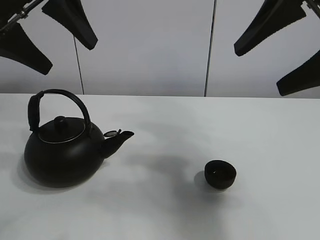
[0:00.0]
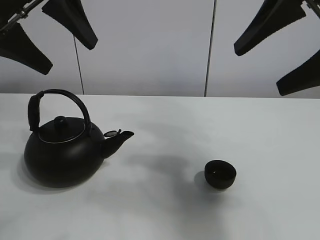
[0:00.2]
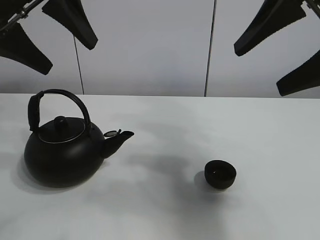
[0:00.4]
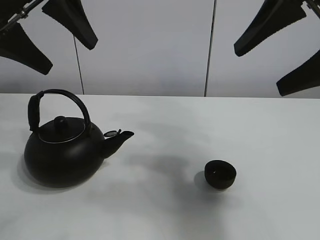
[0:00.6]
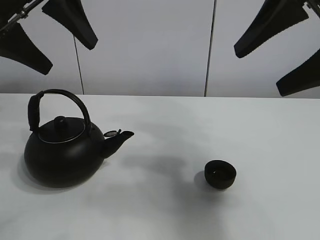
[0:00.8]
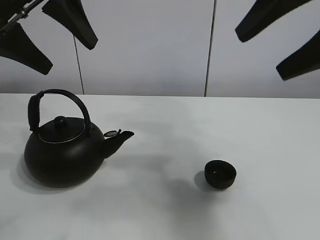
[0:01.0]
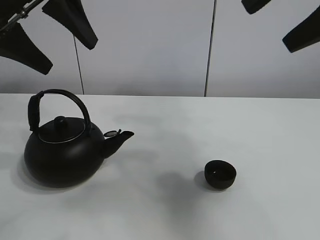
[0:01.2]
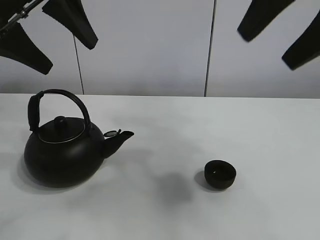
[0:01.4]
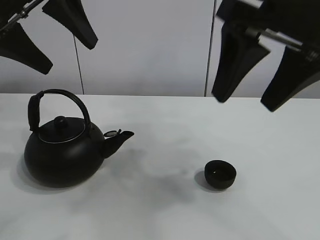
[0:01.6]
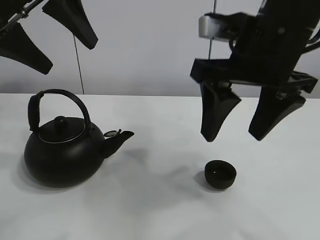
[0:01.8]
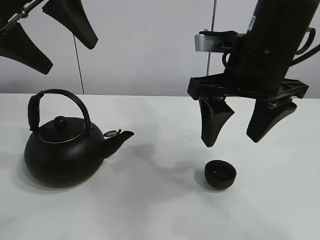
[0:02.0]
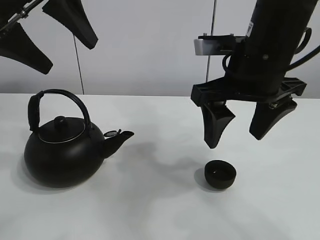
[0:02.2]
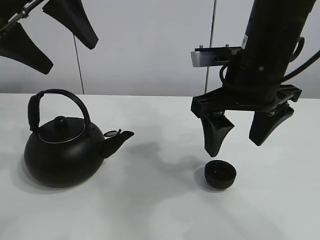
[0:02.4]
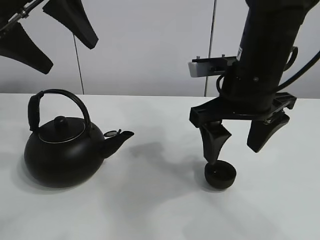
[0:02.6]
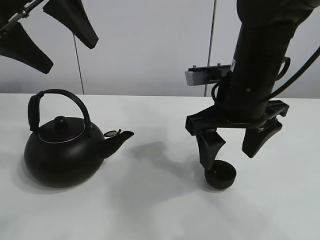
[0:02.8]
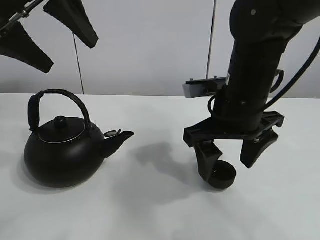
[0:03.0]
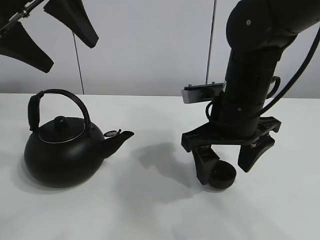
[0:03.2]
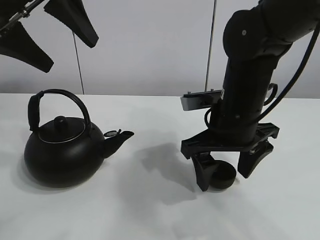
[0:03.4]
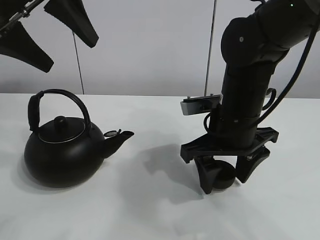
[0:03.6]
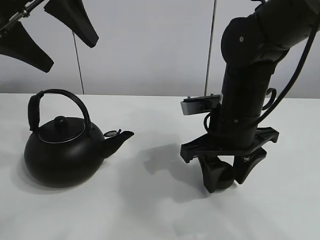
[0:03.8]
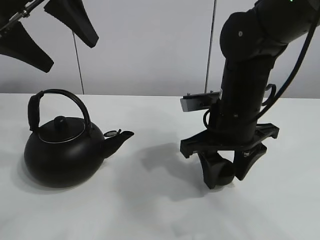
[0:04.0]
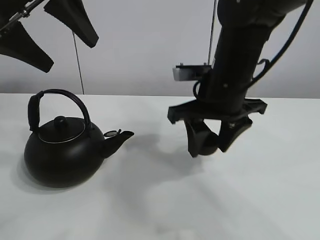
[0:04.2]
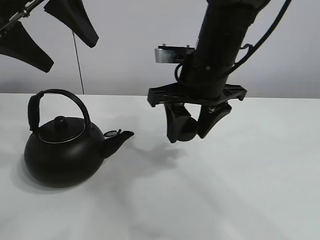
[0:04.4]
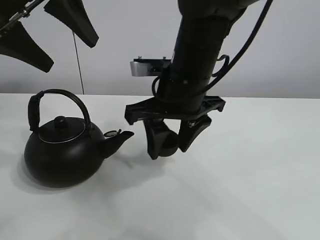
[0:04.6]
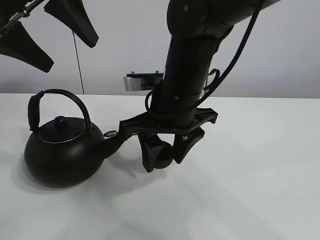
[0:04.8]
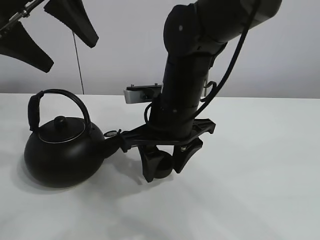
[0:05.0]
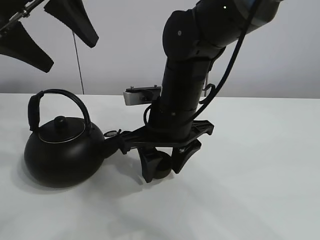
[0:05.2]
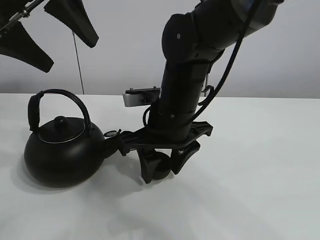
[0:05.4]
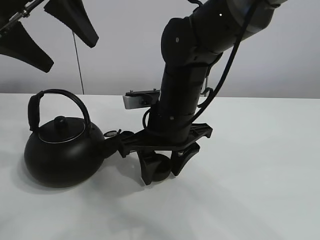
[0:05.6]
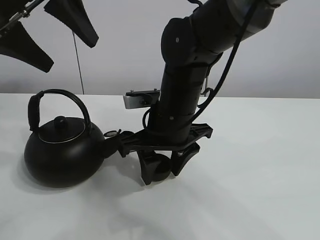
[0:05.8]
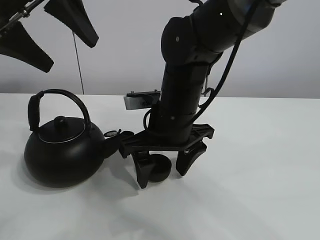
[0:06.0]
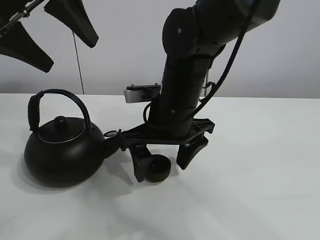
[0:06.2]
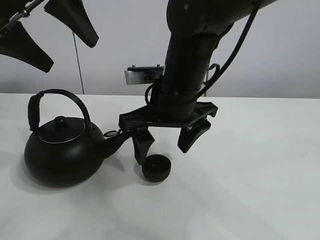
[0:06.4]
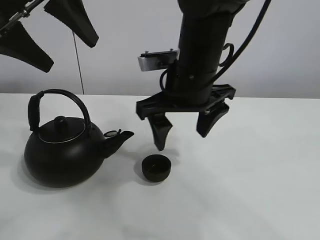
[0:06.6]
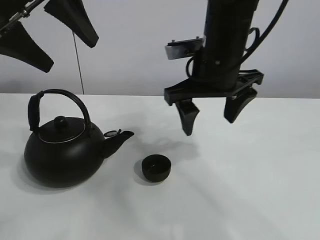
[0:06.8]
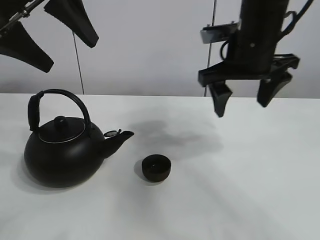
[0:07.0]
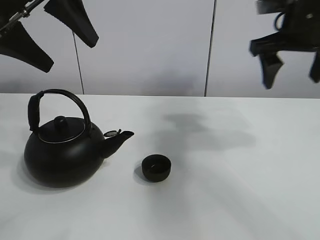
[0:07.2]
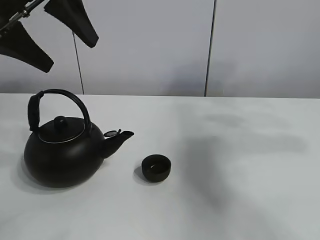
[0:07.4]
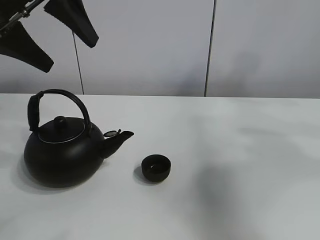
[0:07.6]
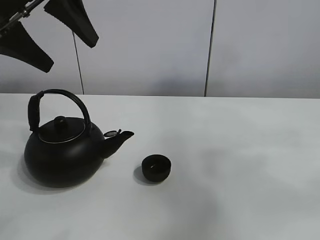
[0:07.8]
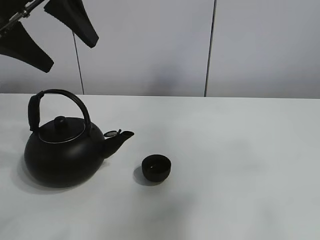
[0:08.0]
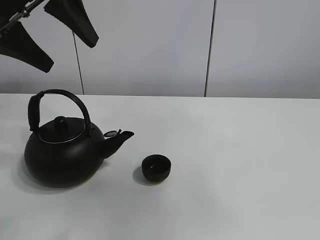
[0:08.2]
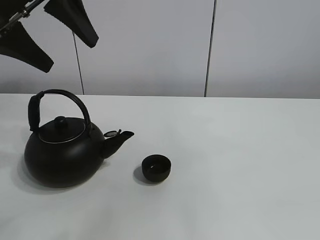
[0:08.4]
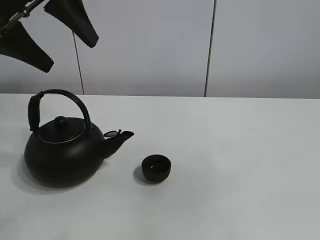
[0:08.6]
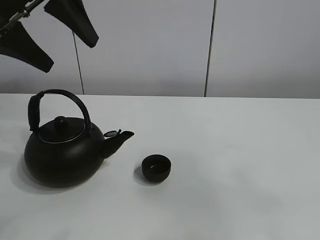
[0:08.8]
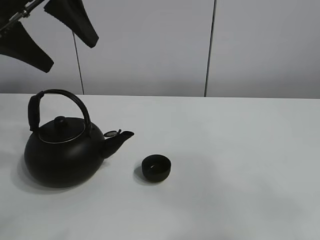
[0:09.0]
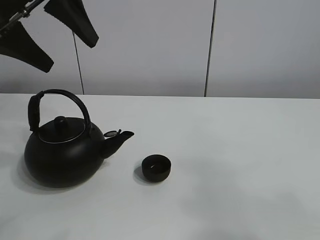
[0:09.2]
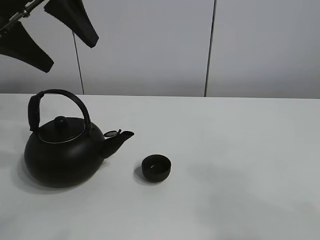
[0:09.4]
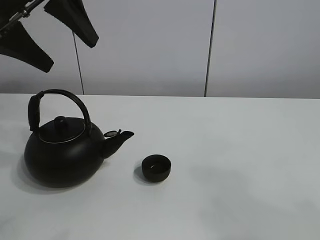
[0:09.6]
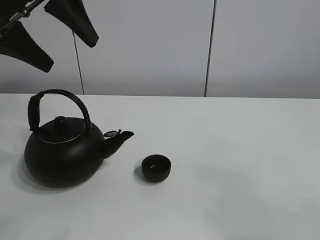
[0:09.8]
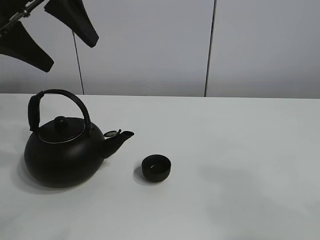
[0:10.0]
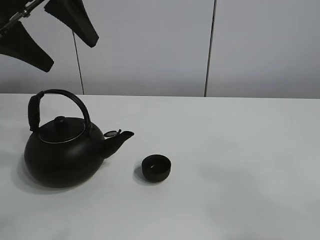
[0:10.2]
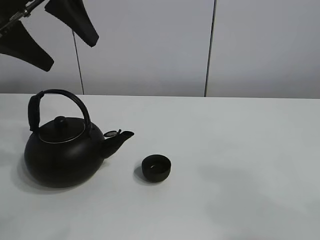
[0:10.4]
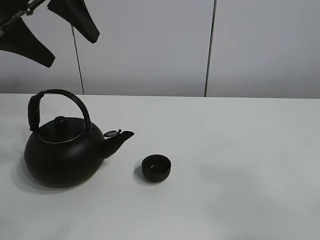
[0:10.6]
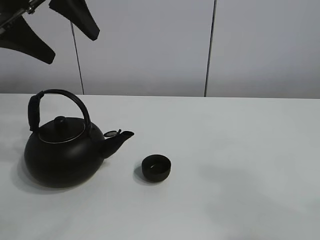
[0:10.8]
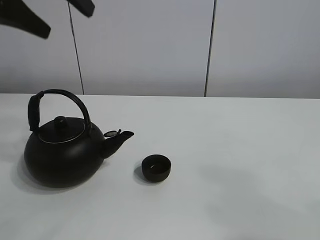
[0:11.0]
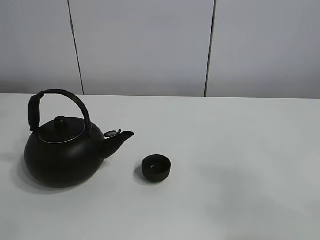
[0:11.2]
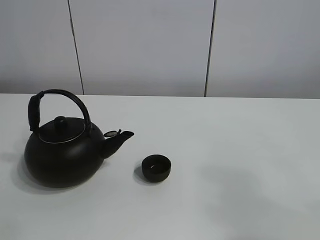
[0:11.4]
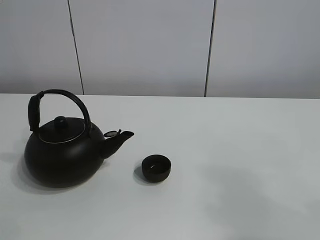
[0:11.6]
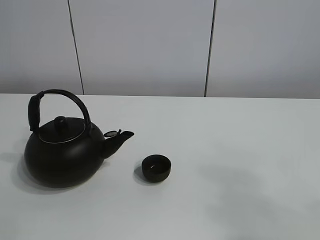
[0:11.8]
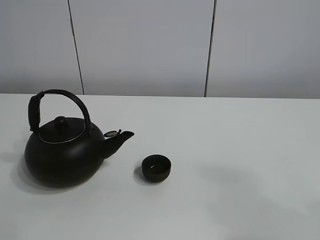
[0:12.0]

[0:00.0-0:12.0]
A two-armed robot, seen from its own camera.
Task of the whole recording: pour tea into the teacup.
Step, 0:00.0 to 0:03.8: Pick up the teacup with the right gripper.
Step, 0:04.0 to 0:05.8: Place the teacup in the center of view with the right gripper.
0:01.6 to 0:03.0: The right gripper travels downward and forward by approximately 15 cm.
0:03.0 to 0:04.4: The right gripper shifts by roughly 5 cm, and closes up.
0:04.4 to 0:06.0: The right gripper goes roughly 10 cm downward and to the left, and opens its fingers.
0:06.0 to 0:07.6: The right gripper heads to the right and upward, covering about 40 cm.
0:07.6 to 0:09.0: The right gripper heads backward and to the left, covering about 35 cm.
0:10.4 to 0:12.0: The left gripper goes roughly 20 cm backward and to the left.

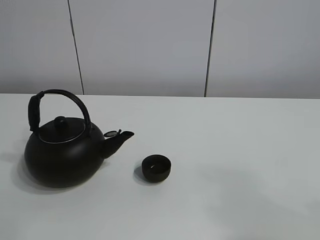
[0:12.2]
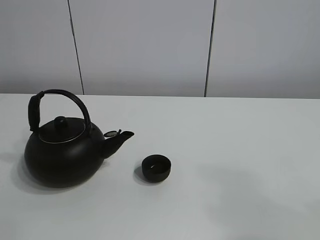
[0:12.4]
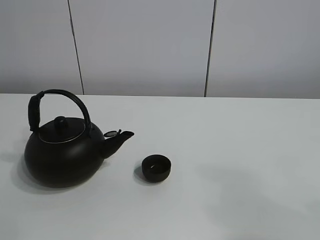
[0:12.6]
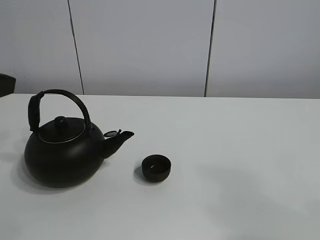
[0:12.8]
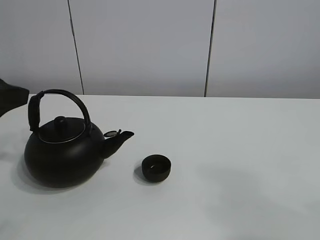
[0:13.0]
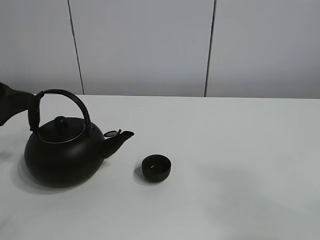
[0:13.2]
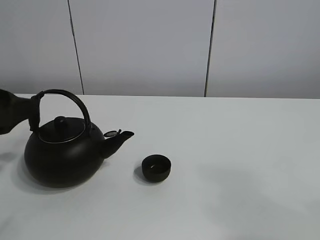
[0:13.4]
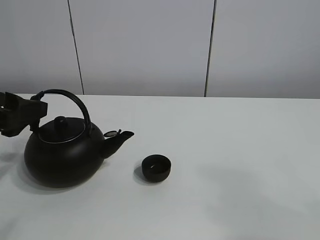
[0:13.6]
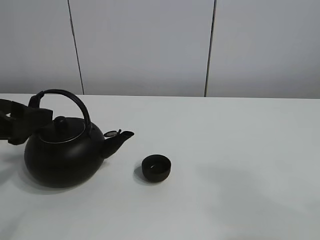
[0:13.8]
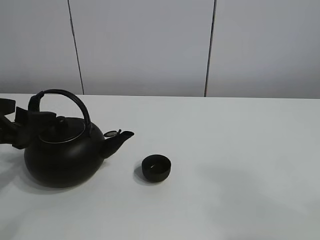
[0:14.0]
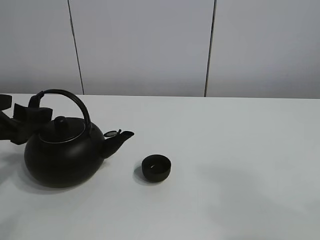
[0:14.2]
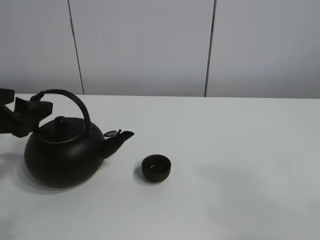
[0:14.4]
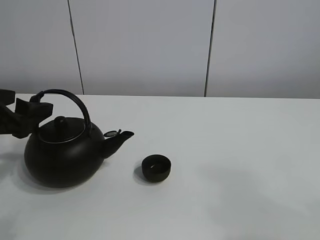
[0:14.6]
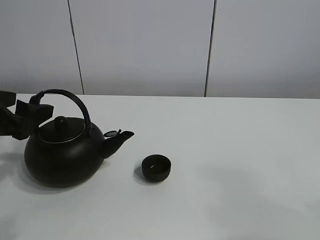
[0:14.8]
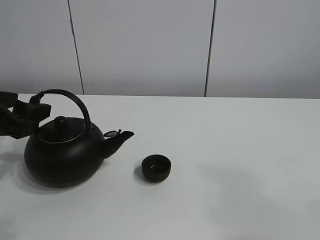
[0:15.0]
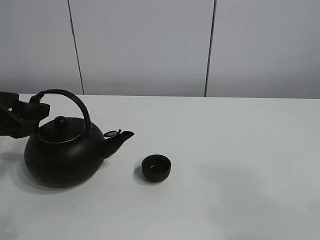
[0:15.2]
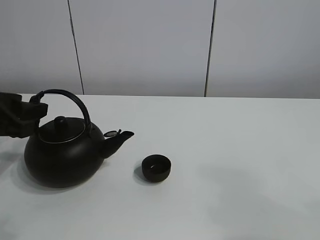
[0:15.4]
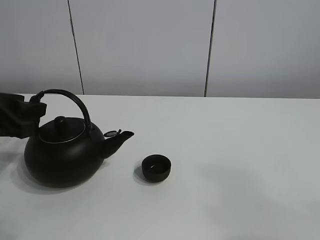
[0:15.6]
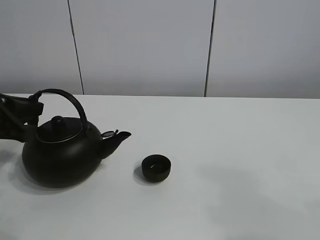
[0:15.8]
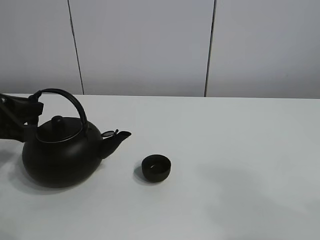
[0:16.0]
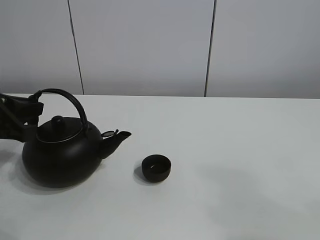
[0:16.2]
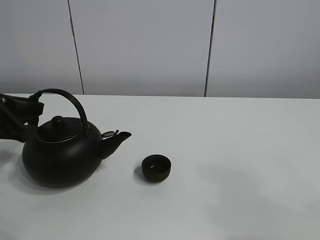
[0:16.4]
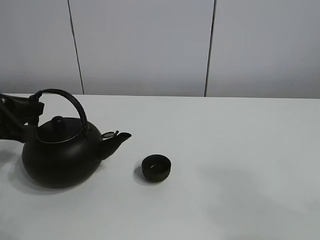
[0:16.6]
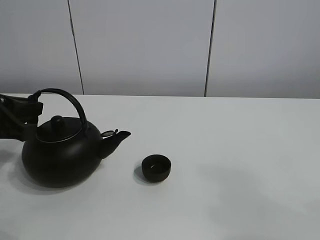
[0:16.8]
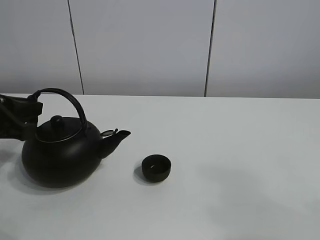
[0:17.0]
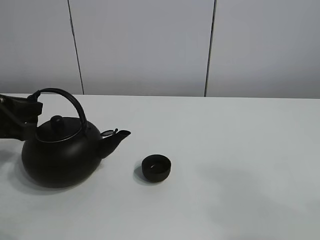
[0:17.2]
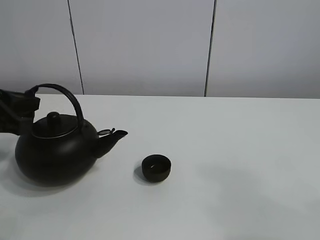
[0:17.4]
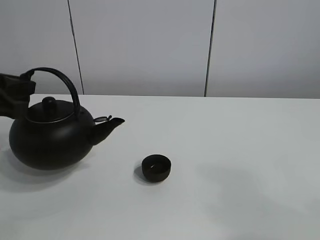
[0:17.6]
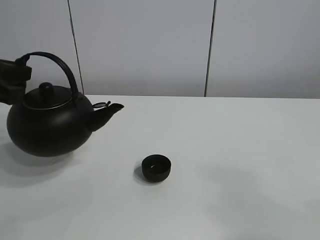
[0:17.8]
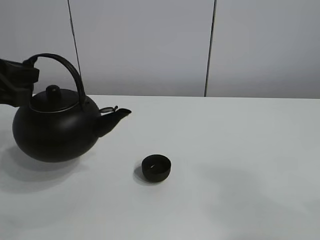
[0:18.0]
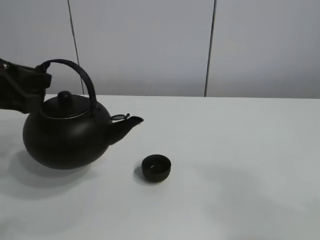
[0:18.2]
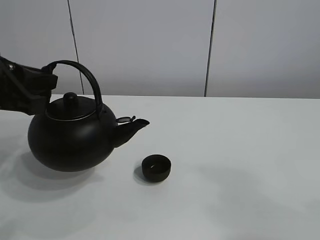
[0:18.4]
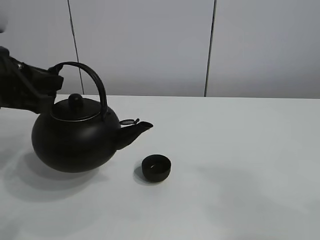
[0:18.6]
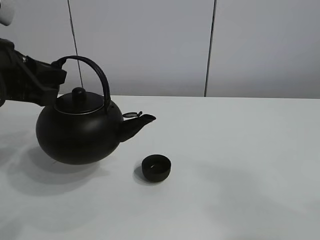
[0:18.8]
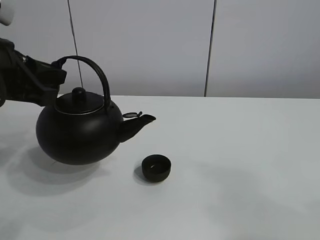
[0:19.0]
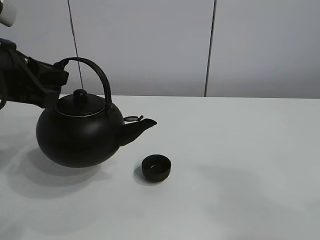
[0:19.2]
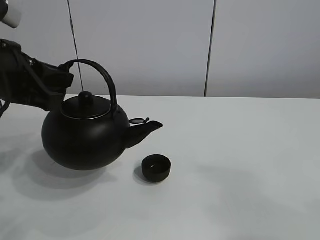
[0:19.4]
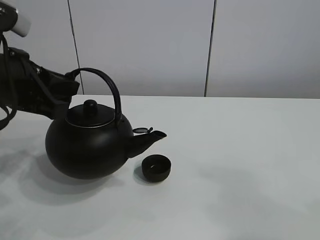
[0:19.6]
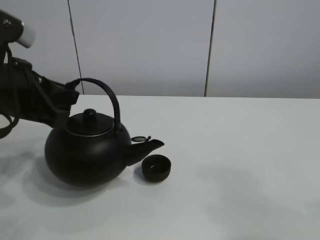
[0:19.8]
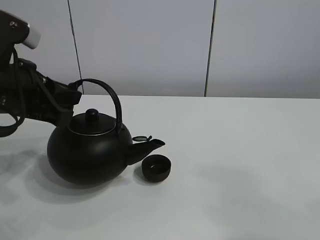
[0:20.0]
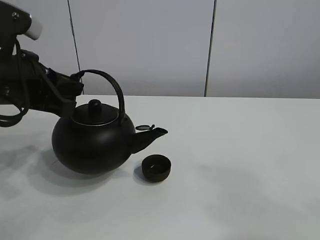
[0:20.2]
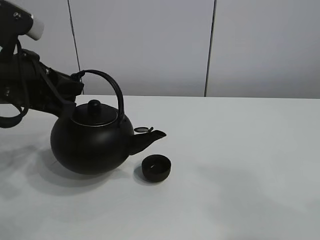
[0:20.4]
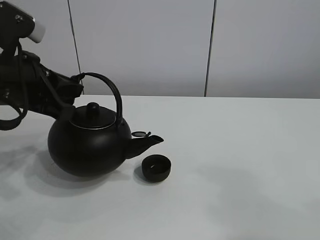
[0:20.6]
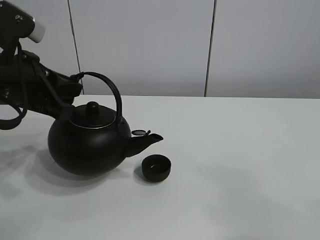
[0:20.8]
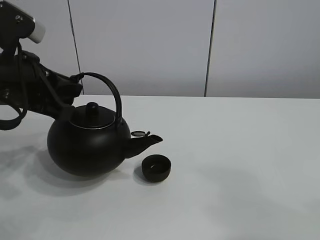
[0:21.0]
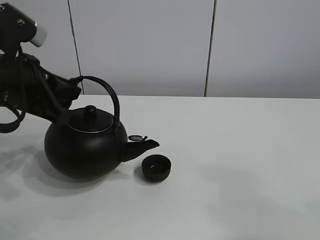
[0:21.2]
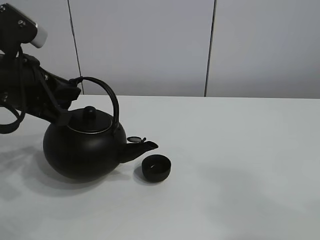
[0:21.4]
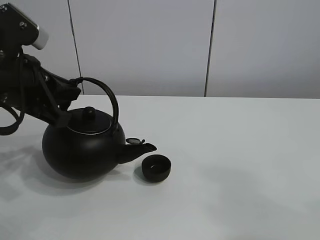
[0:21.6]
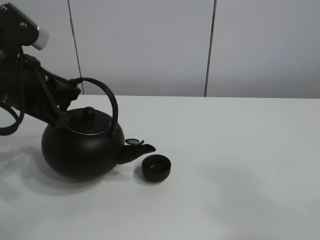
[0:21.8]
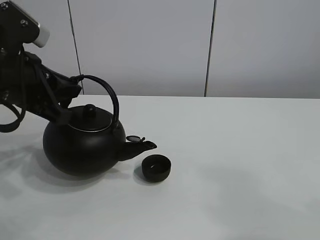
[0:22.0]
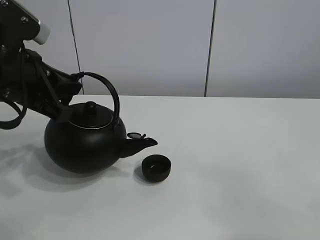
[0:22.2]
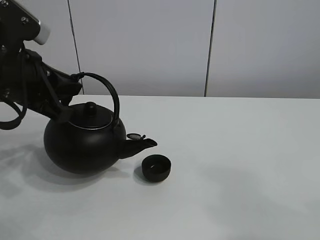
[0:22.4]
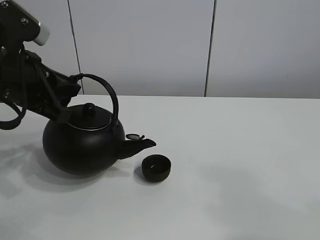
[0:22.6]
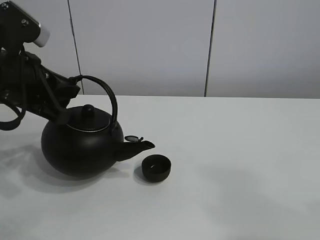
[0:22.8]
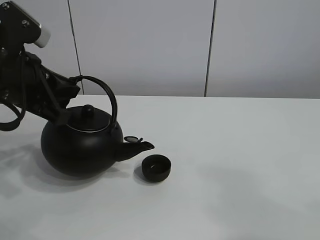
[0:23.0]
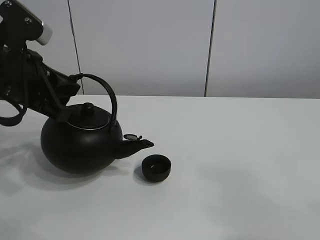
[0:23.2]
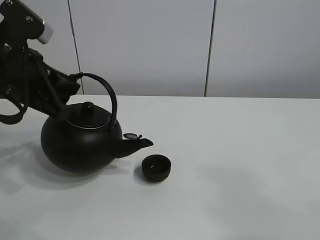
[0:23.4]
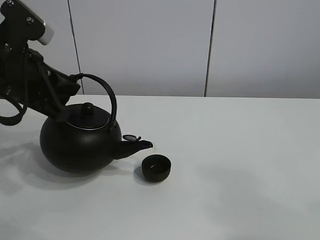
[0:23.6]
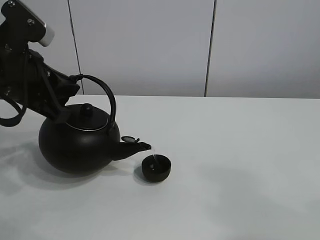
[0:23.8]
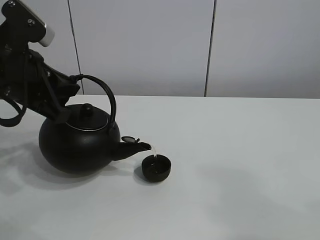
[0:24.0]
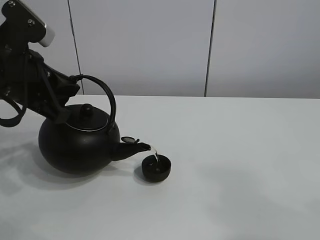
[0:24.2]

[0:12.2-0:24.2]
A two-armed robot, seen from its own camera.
Task of the whole recording: pour tea into the teacup.
Step, 0:12.2 to 0:17.4: Pick up the teapot with the left gripper.
0:12.2 to 0:13.8: The left gripper travels downward and forward by some 20 cm.
0:15.2 to 0:16.6: The left gripper closes.
0:16.6 to 0:18.2: The left gripper moves upward, roughly 5 cm.
0:18.2 to 0:21.2: There are only small adjustments of the grippers.
0:21.2 to 0:22.6: The two grippers keep their place.
0:22.6 to 0:24.2: The two grippers keep their place.
